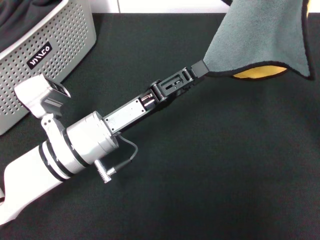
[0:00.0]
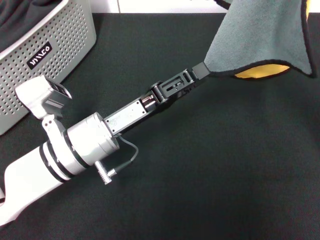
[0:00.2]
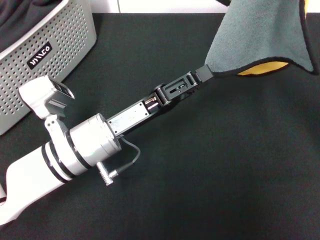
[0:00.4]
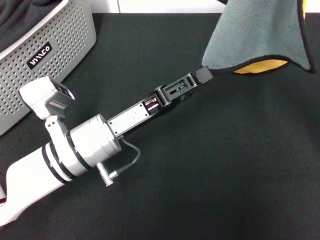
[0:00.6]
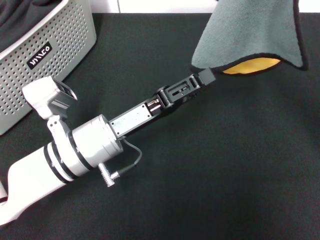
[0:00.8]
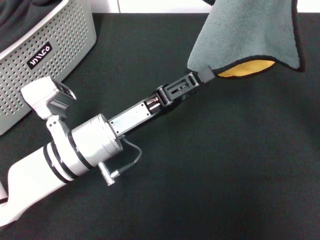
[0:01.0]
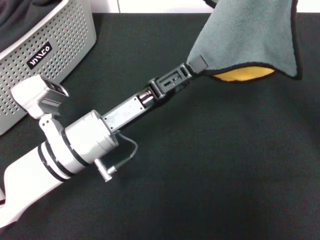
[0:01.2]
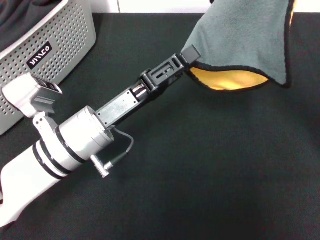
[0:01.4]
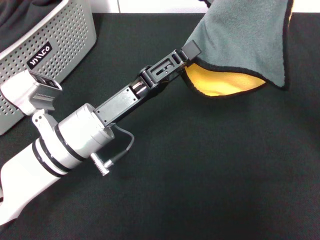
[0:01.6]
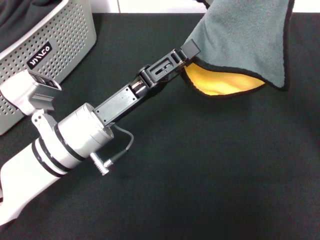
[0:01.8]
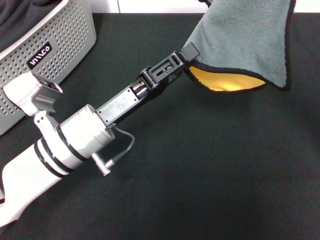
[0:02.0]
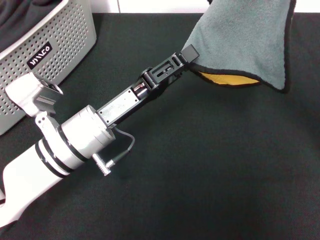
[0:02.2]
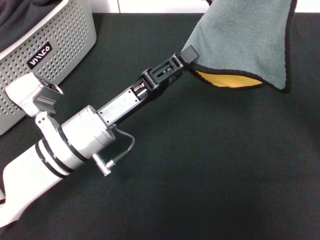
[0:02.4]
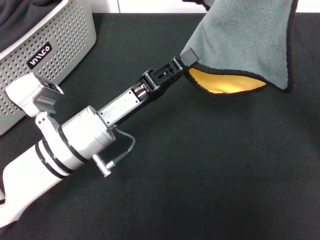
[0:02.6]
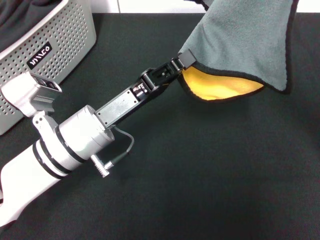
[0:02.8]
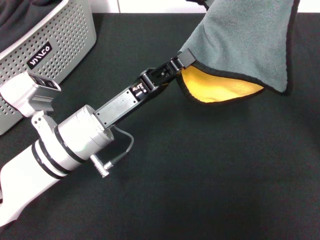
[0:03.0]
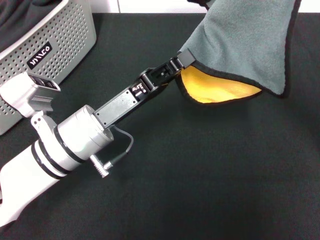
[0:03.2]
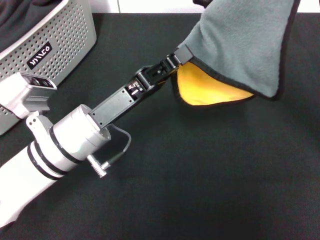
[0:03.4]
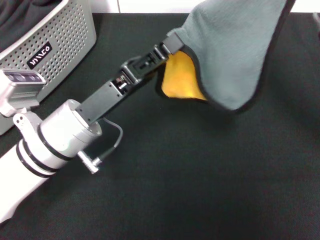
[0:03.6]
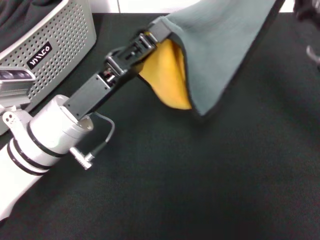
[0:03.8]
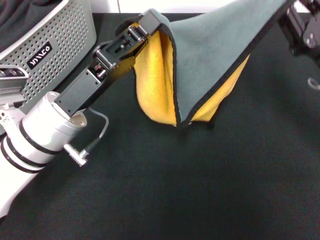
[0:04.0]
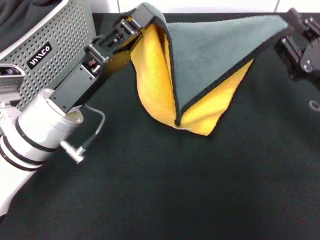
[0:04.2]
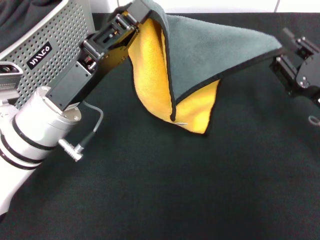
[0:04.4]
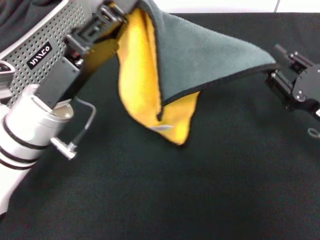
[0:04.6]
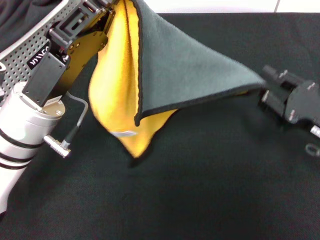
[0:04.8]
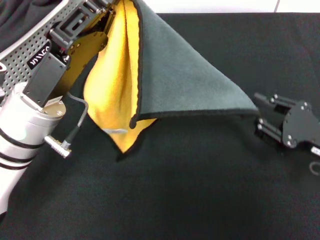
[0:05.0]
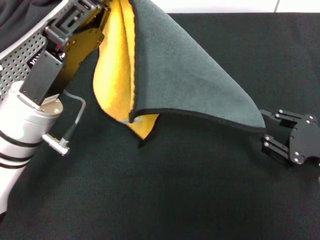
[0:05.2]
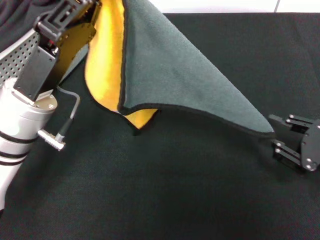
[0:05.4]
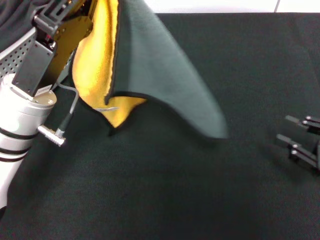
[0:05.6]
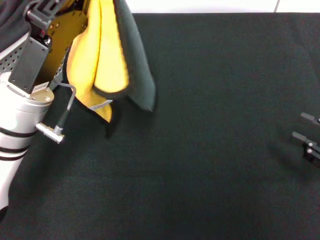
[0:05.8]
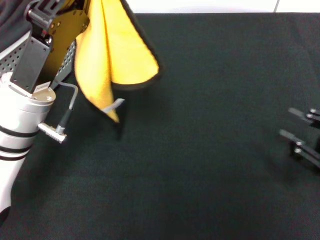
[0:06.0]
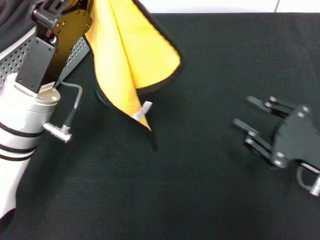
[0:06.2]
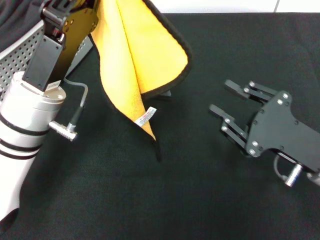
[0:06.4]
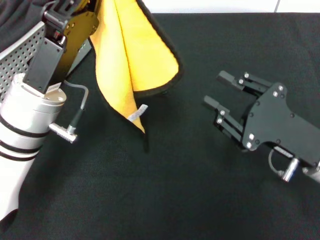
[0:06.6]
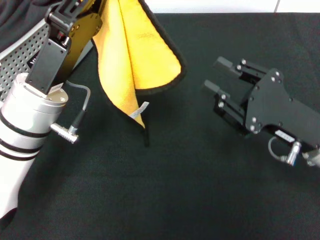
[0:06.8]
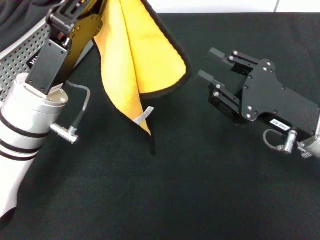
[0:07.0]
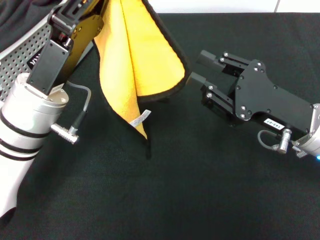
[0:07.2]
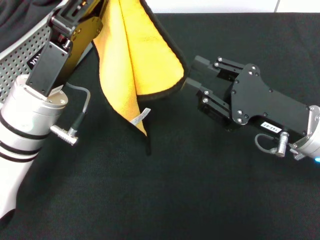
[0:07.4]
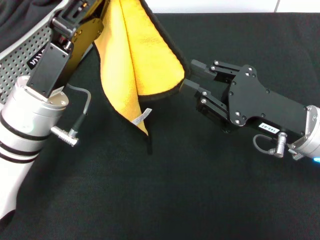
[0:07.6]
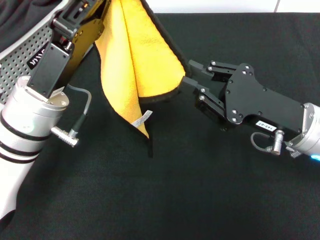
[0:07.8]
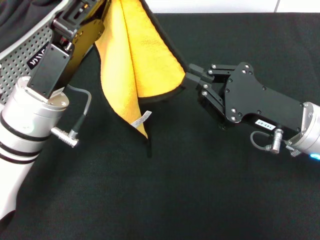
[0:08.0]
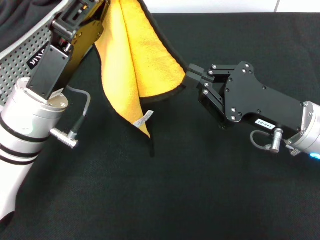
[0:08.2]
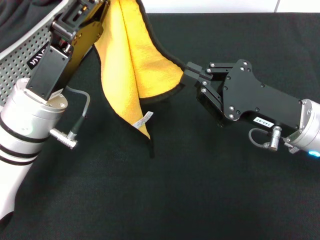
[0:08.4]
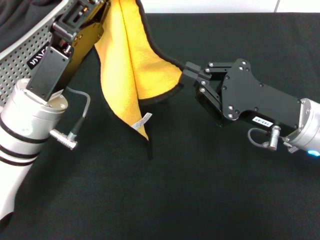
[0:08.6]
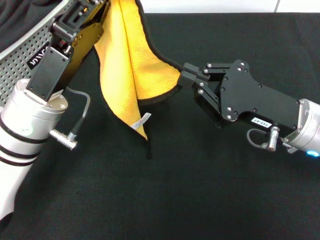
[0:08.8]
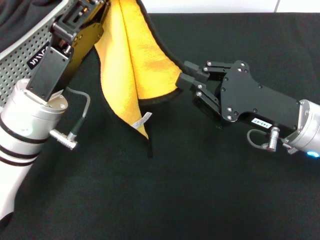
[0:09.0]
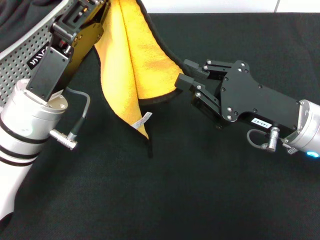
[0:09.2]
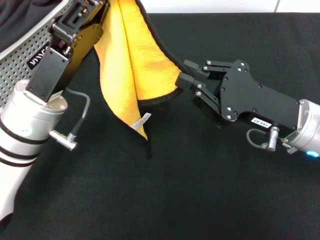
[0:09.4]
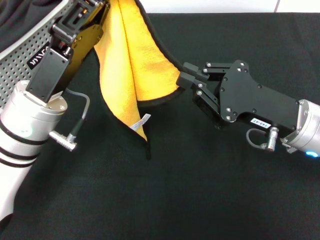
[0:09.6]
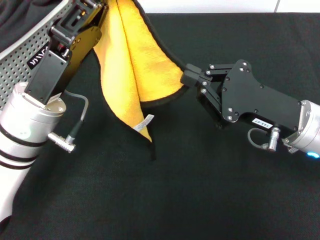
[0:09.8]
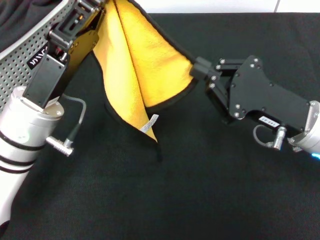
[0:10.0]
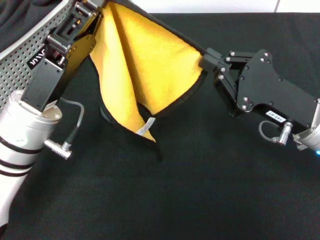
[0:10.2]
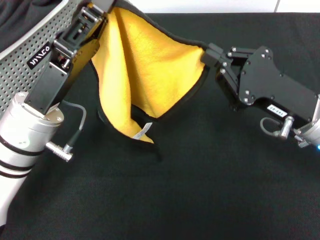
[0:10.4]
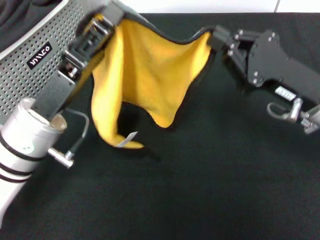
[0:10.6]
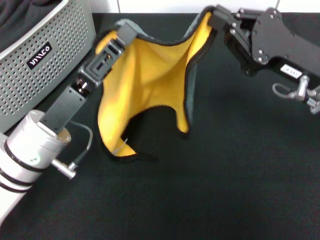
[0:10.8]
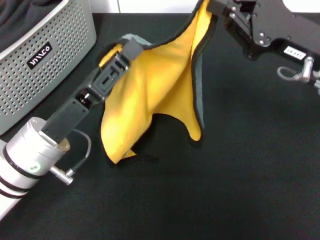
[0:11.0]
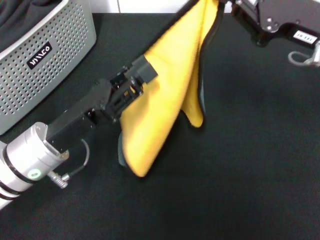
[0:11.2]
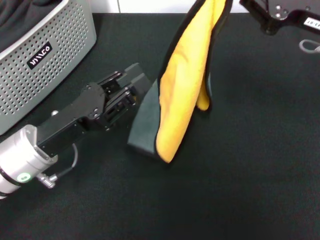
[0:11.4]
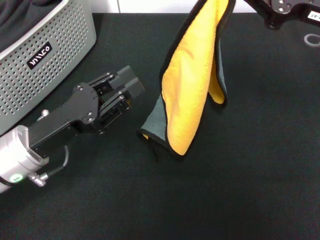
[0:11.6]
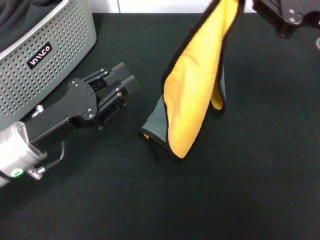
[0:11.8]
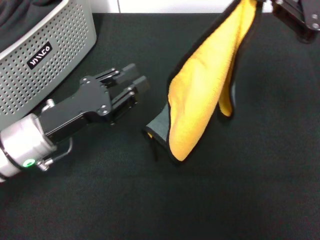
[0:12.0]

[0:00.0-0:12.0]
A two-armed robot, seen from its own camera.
Task of the whole recording: pick up the towel from the storage box and lay it flat on the black tablecloth.
0:01.6 to 0:03.0: The left gripper closes its fingers.
0:03.0 to 0:04.4: The right gripper moves downward and to the right, roughly 15 cm.
0:04.4 to 0:06.0: The right gripper heads to the right and backward, covering some 10 cm.
0:06.0 to 0:07.6: The right gripper shifts some 15 cm to the left.
0:07.6 to 0:09.0: The right gripper closes up.
0:10.4 to 0:12.0: The left gripper opens its fingers, while the right gripper moves upward, to the right and forward, some 15 cm.

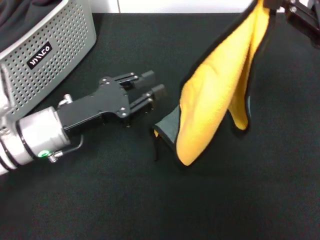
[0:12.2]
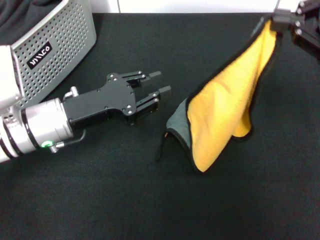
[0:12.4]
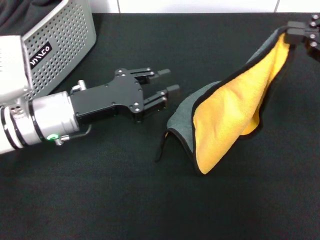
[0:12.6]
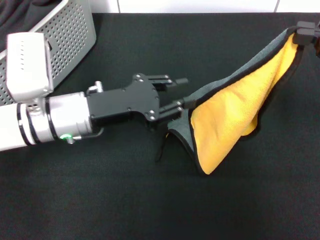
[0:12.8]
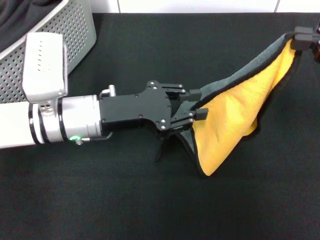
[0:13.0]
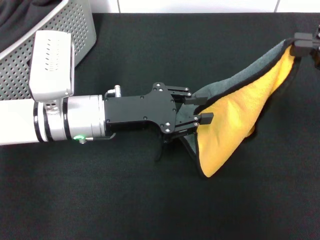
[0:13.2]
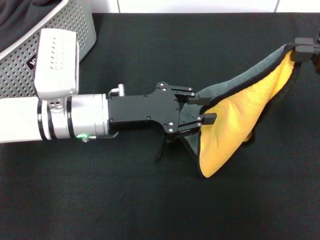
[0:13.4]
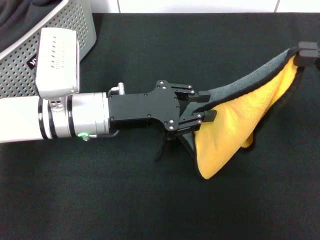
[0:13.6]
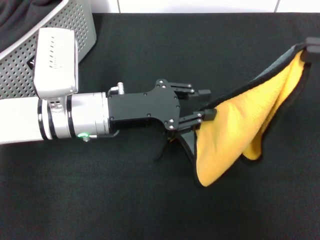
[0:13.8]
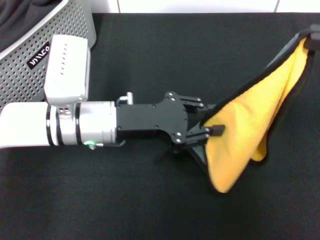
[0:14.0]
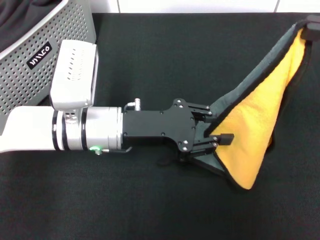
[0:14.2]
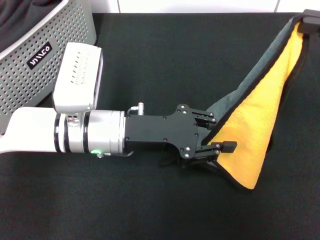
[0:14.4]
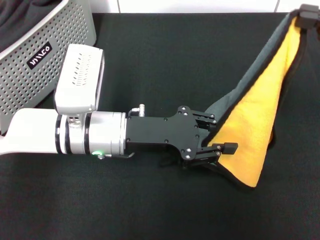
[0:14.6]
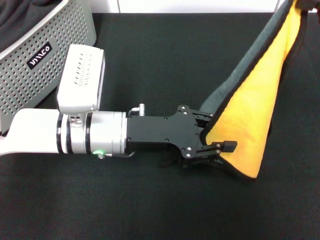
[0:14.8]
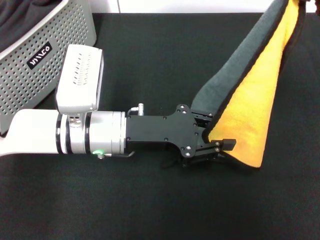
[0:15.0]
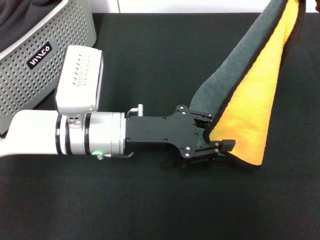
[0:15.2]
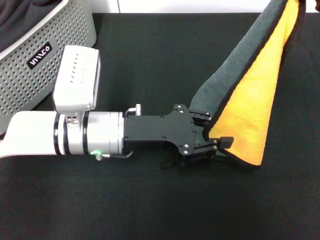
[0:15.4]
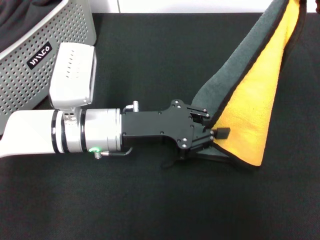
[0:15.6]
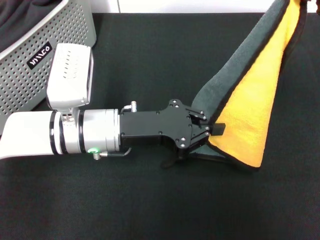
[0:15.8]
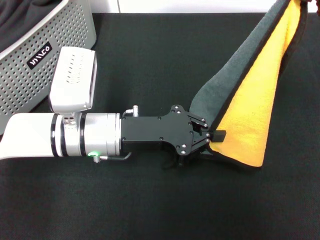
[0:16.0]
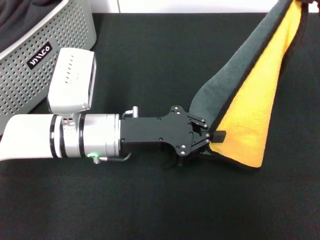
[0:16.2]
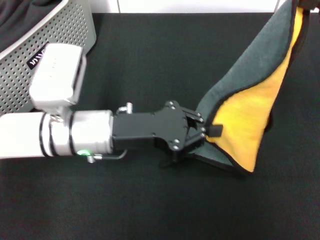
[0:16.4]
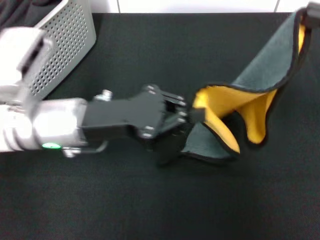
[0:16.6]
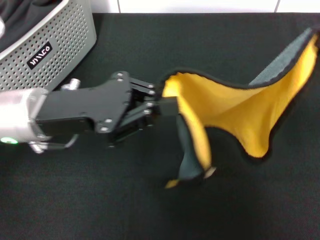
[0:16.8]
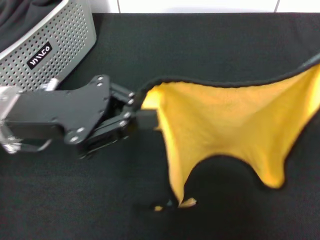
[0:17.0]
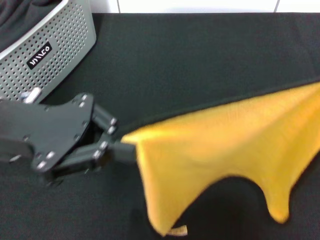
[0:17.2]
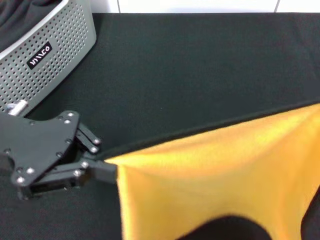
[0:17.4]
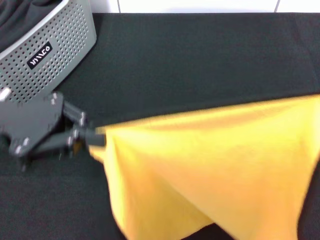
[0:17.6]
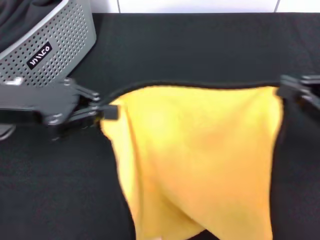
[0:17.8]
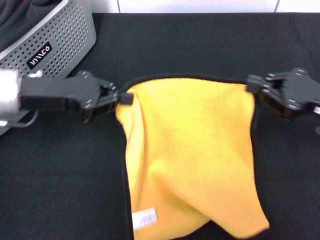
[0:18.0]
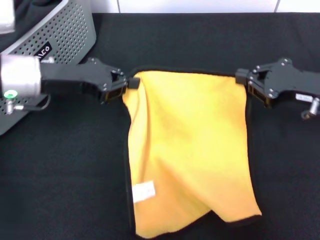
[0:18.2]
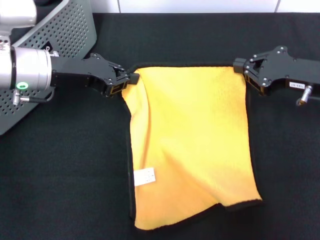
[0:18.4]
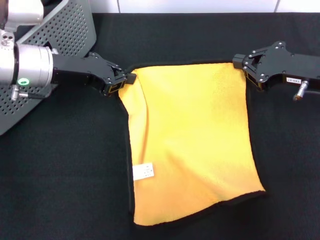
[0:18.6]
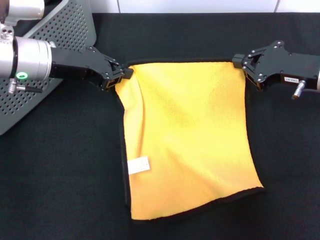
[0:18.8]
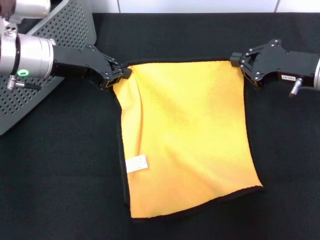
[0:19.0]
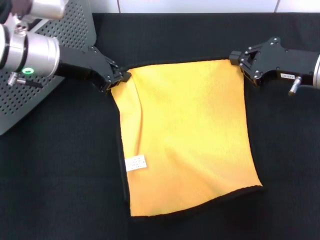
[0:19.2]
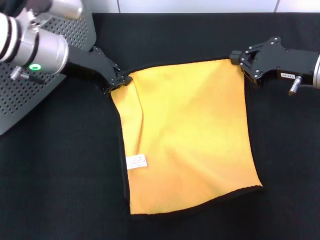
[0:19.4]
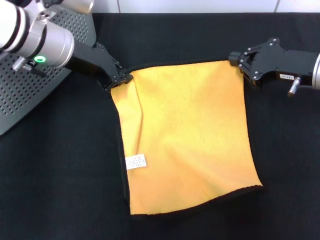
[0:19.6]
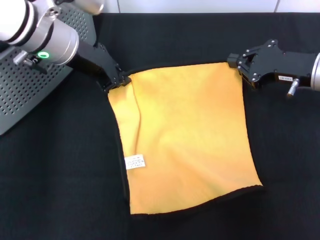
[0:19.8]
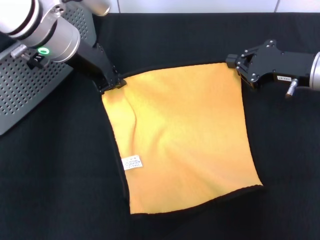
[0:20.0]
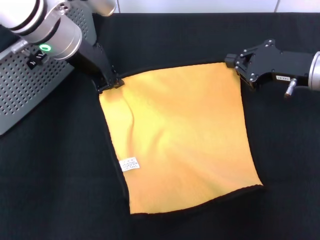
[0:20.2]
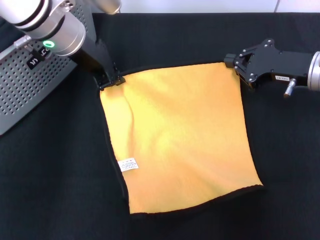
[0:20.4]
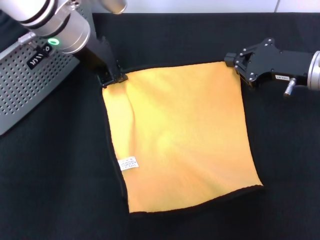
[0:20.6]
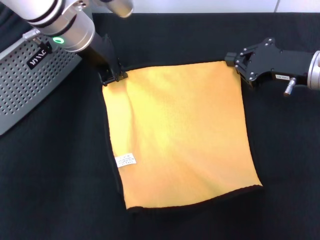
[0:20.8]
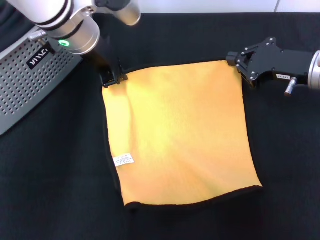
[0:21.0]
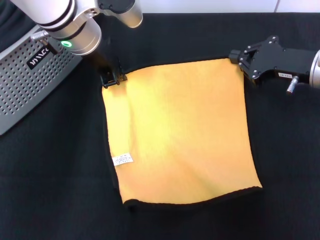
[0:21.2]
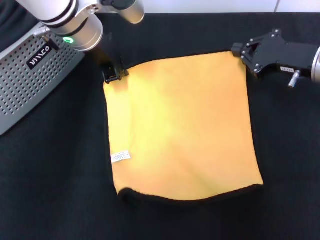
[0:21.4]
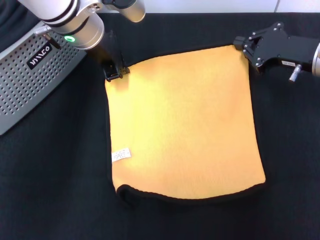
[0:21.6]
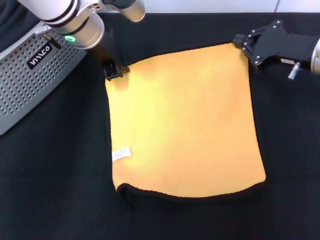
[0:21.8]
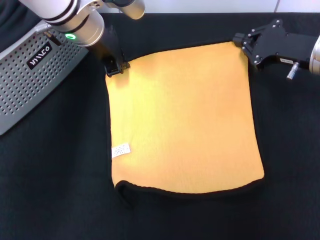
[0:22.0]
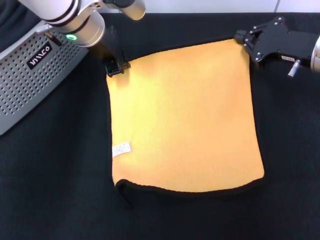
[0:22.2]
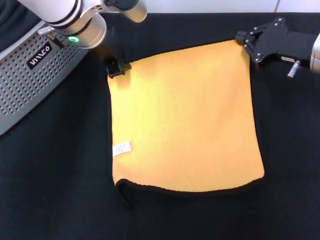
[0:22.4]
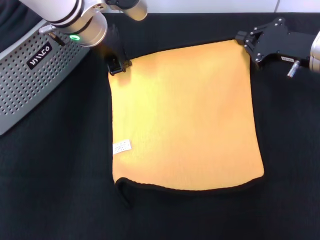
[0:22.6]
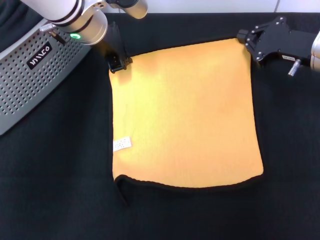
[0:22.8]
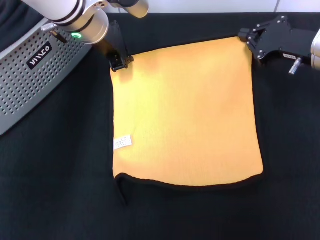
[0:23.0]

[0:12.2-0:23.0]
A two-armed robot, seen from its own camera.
Task of the whole recording: pick up the towel from the storage box and lay it flat on the black tablecloth.
0:12.2 to 0:13.8: The left gripper shifts approximately 5 cm to the right. Meanwhile the right gripper moves roughly 5 cm.
0:15.2 to 0:16.8: The right gripper changes place by approximately 5 cm; the left gripper goes some 10 cm to the left and upward, and closes its fingers.
0:16.8 to 0:18.4: The right gripper shifts about 15 cm downward, forward and to the left; the left gripper goes some 10 cm forward.
0:18.4 to 0:20.0: The left gripper goes about 10 cm to the right and upward.
0:21.4 to 0:23.0: The grippers make only small movements.
